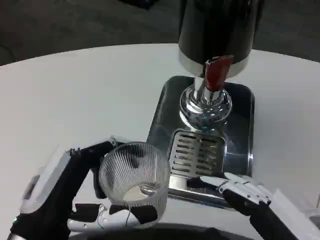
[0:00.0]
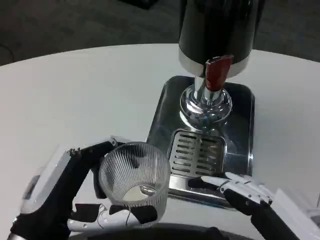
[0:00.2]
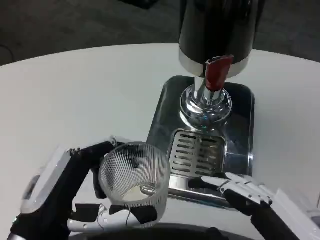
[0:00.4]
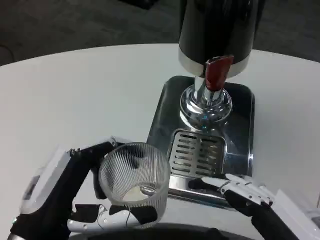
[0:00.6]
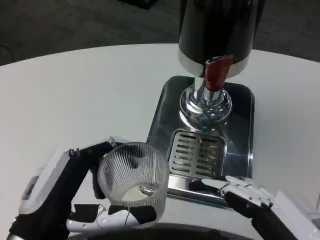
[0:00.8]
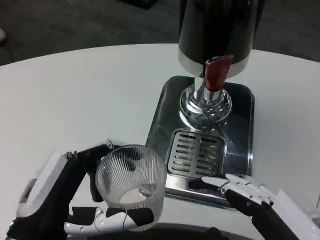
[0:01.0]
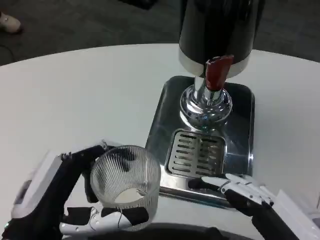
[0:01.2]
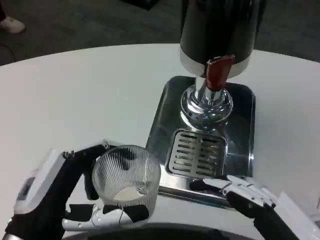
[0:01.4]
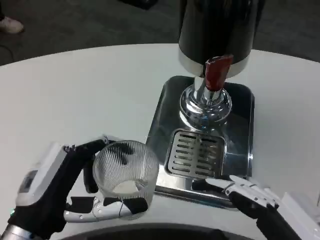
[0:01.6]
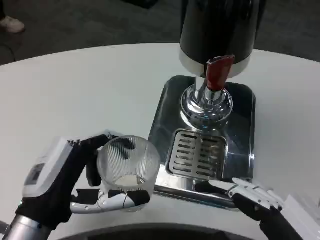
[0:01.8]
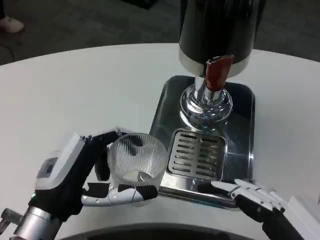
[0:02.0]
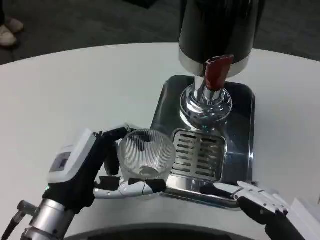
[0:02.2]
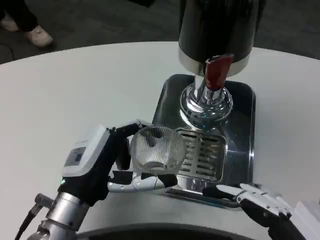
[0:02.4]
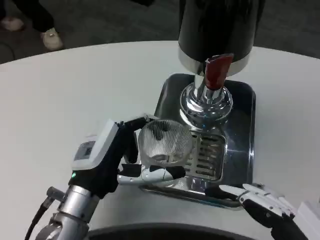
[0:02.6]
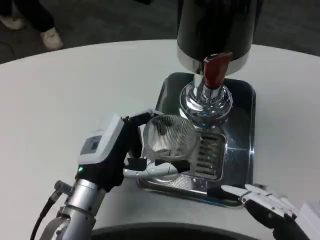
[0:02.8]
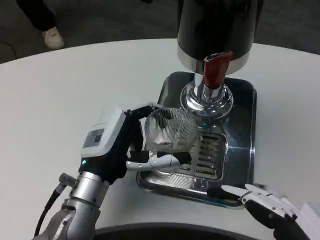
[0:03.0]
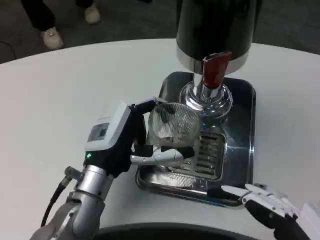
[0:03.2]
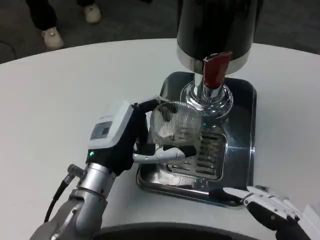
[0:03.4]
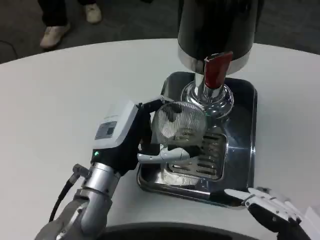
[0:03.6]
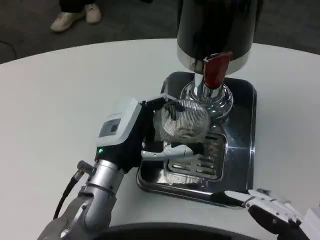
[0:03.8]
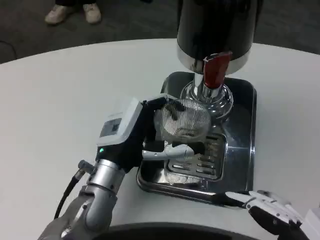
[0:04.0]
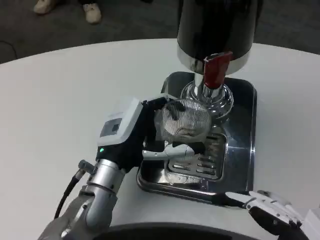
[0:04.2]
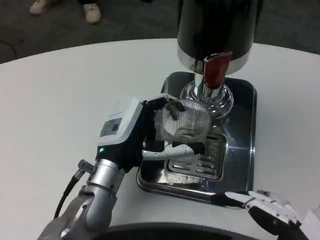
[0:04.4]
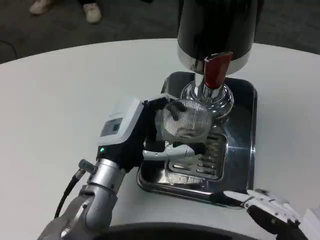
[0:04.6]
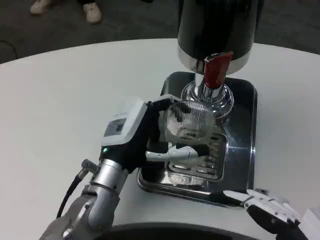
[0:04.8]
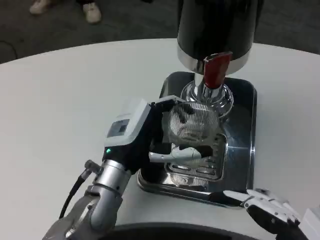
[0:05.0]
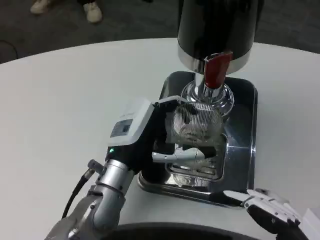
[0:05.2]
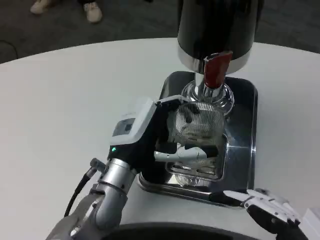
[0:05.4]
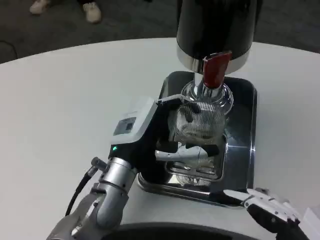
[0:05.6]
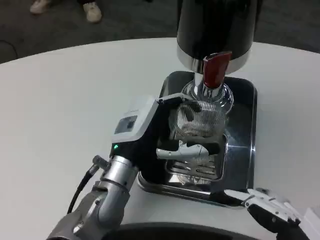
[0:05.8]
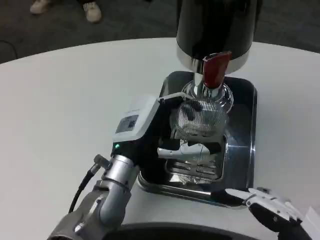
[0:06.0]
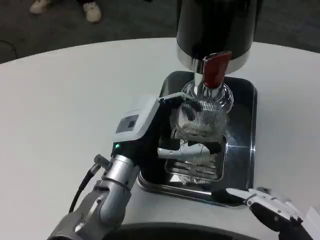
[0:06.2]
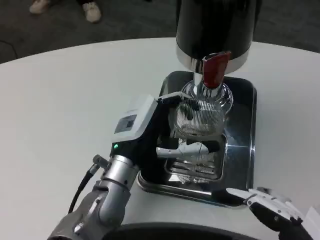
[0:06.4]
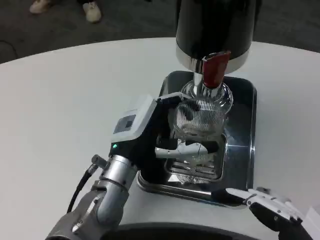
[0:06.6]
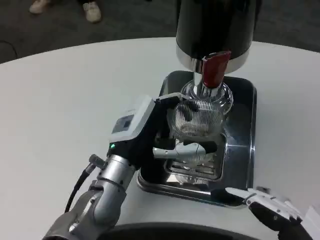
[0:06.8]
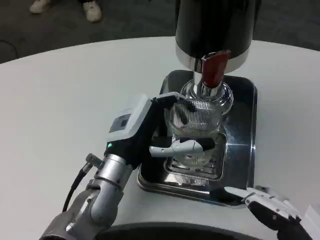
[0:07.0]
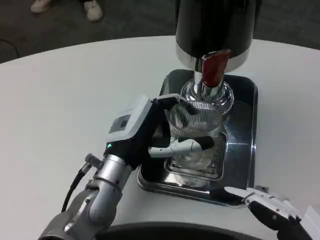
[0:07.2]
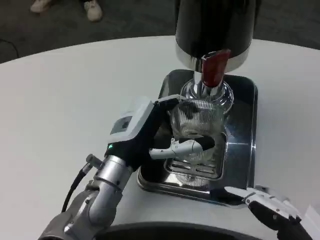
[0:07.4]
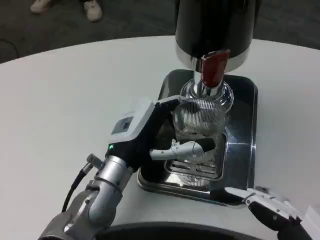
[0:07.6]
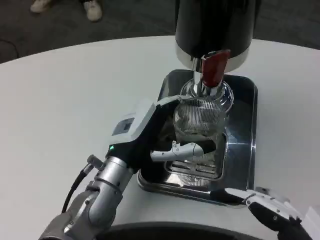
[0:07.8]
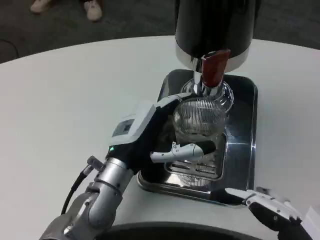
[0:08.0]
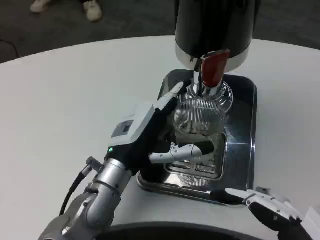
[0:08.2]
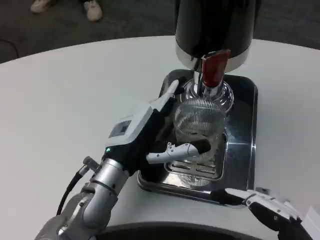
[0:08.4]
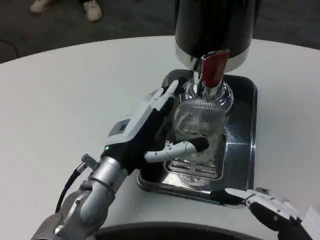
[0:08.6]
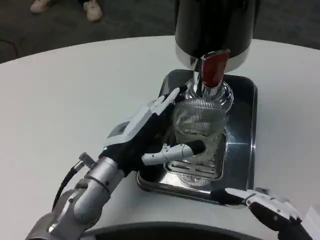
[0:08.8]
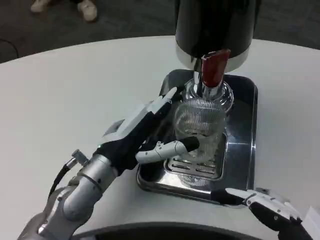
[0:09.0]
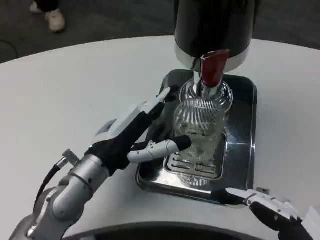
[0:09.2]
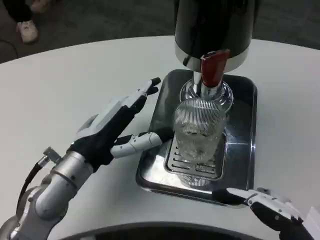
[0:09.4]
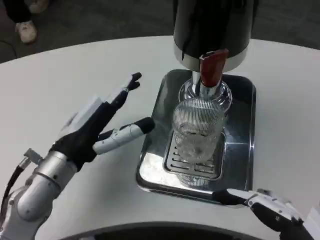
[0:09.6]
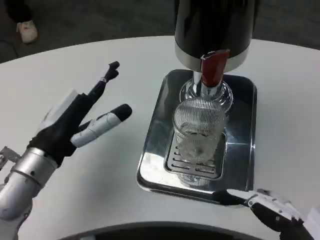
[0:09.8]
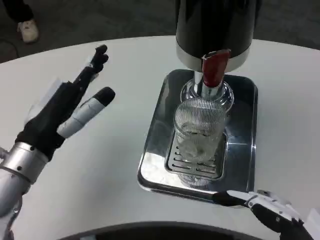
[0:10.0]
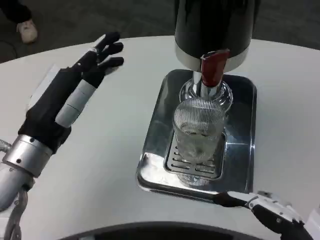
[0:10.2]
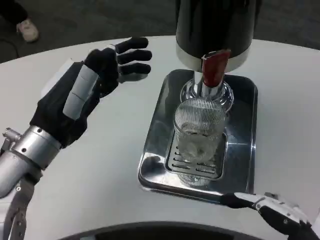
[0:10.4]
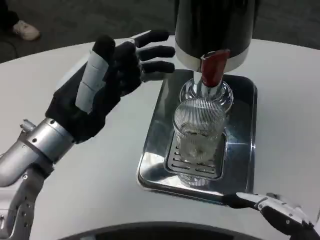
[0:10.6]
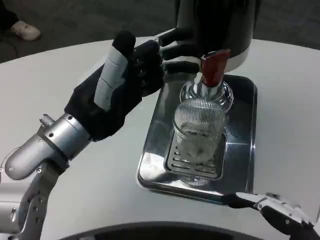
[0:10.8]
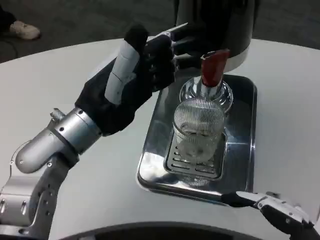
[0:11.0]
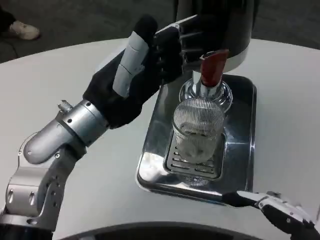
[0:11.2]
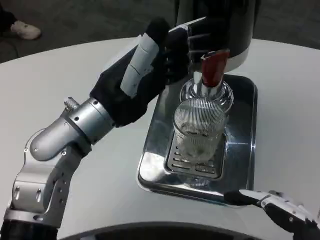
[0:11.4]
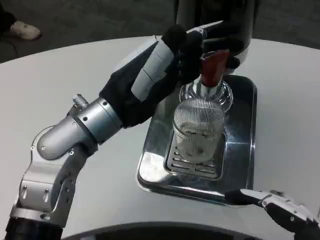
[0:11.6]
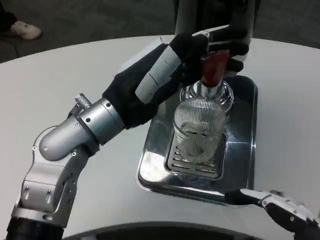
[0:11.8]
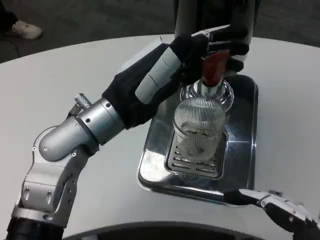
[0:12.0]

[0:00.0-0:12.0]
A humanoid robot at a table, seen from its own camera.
Task of the whole recording: Grasp the cup under the faucet to collect the drink, then remove the cup.
0:00.0 to 0:01.6: The hands stay close to where they were, moving slightly.
0:01.6 to 0:03.0: The left hand shifts some 10 cm forward and to the right.
0:03.0 to 0:06.0: There are only small adjustments of the hands.
0:06.0 to 0:07.6: Both hands stay put.
0:07.6 to 0:09.0: There are only small adjustments of the hands.
0:09.0 to 0:10.4: The left hand travels upward and to the left by approximately 10 cm.
0:10.4 to 0:12.0: The left hand moves to the right, some 5 cm.

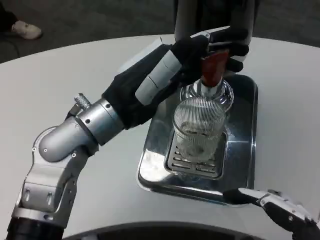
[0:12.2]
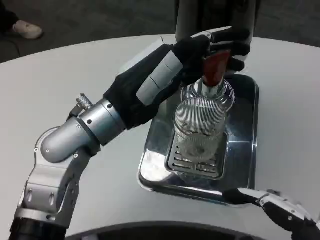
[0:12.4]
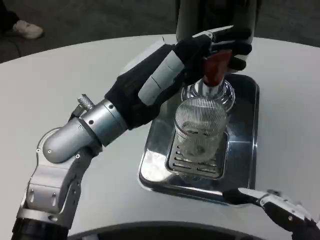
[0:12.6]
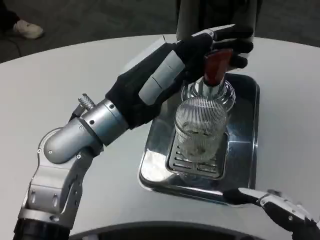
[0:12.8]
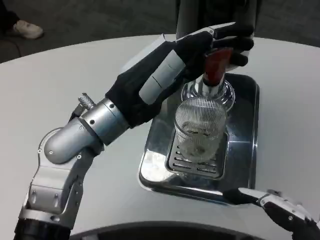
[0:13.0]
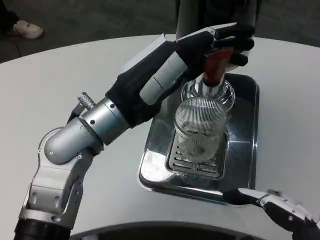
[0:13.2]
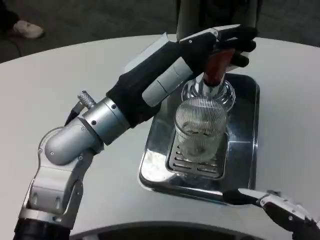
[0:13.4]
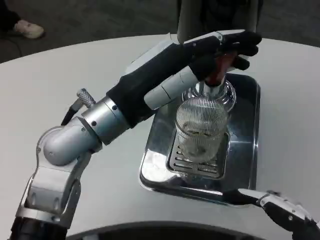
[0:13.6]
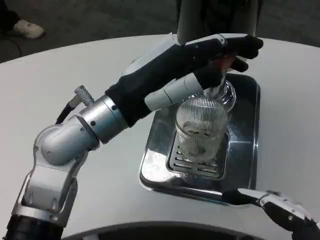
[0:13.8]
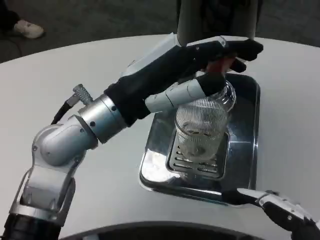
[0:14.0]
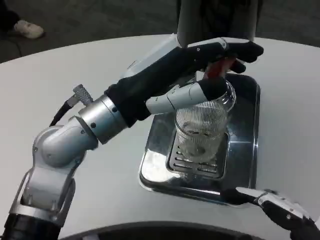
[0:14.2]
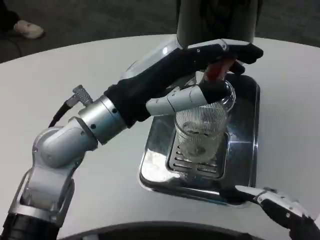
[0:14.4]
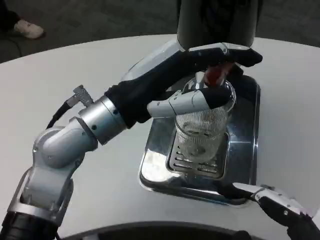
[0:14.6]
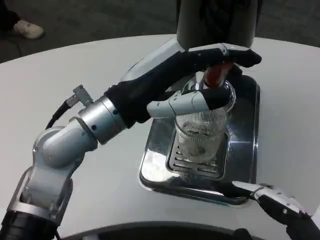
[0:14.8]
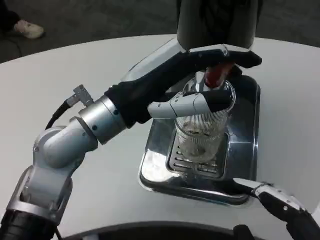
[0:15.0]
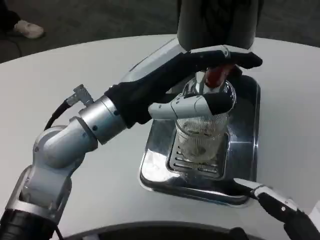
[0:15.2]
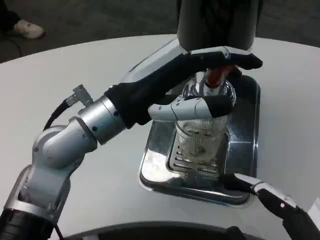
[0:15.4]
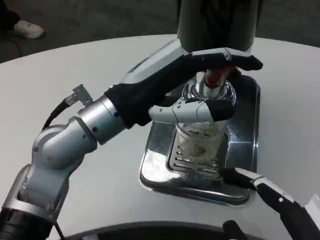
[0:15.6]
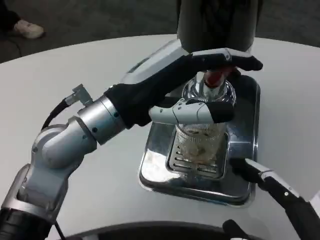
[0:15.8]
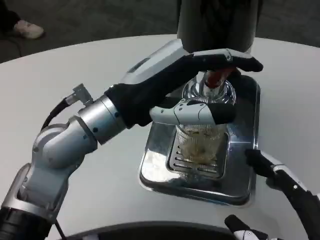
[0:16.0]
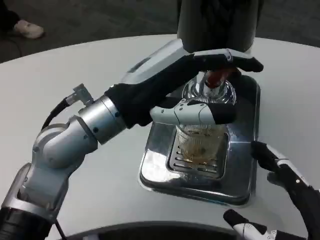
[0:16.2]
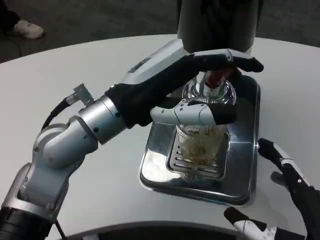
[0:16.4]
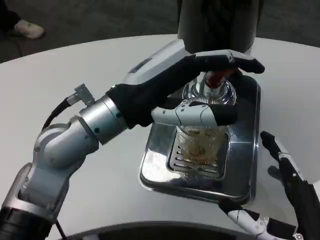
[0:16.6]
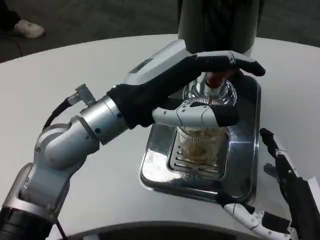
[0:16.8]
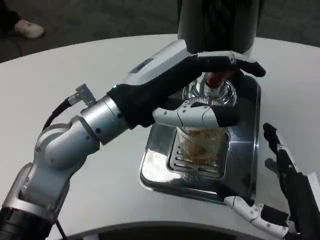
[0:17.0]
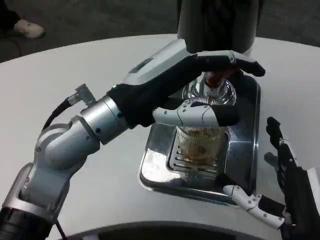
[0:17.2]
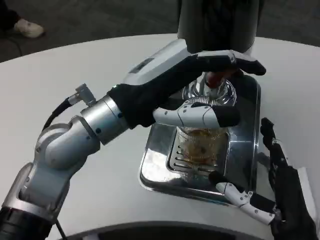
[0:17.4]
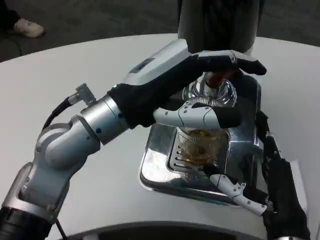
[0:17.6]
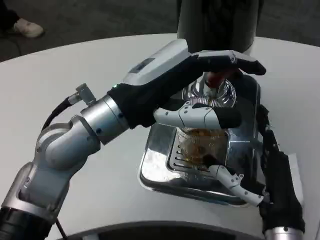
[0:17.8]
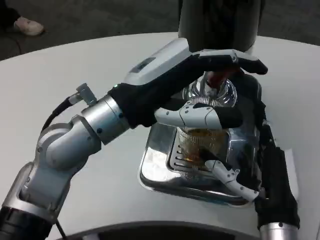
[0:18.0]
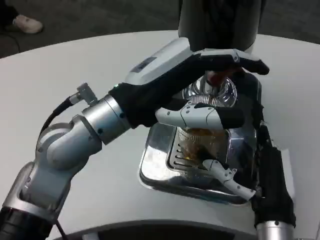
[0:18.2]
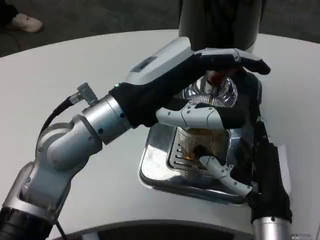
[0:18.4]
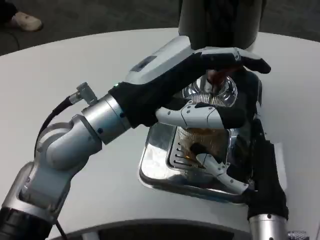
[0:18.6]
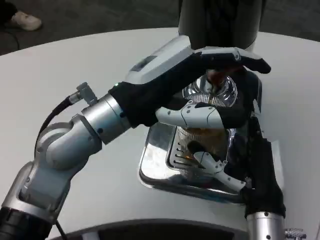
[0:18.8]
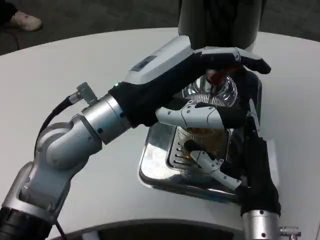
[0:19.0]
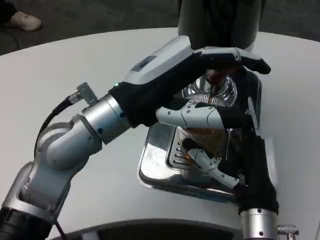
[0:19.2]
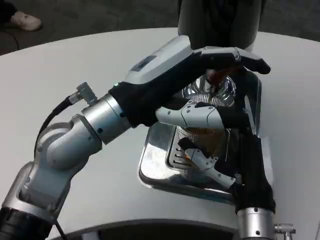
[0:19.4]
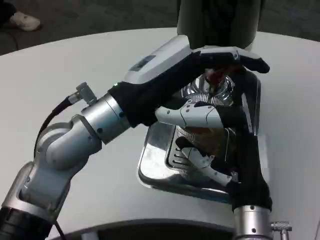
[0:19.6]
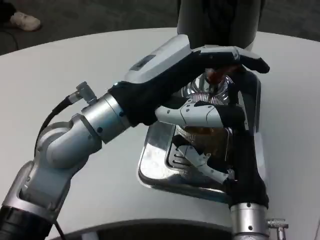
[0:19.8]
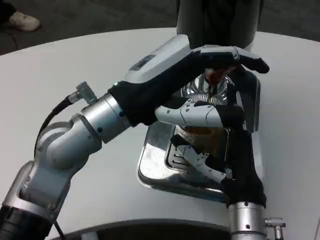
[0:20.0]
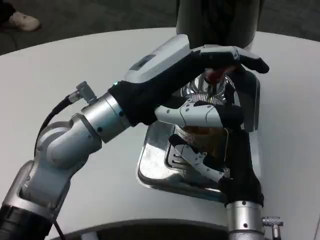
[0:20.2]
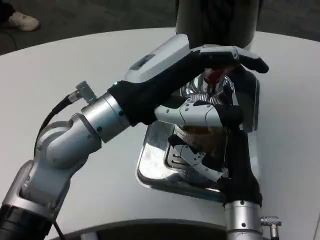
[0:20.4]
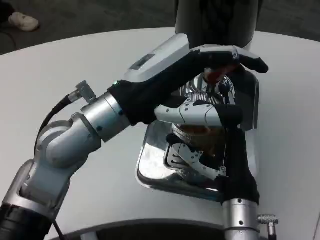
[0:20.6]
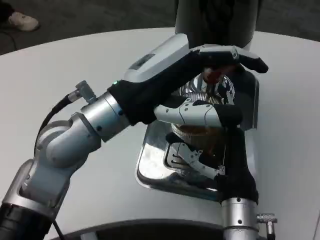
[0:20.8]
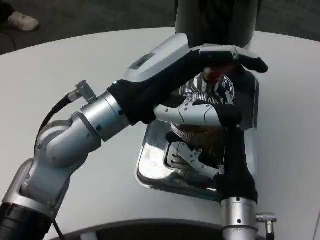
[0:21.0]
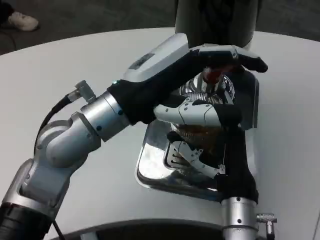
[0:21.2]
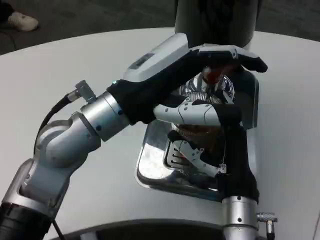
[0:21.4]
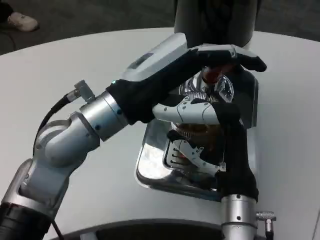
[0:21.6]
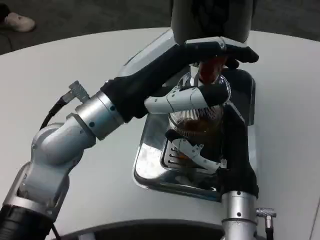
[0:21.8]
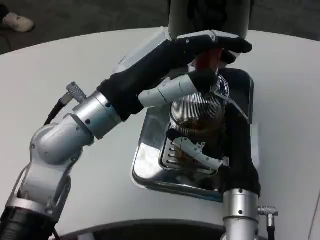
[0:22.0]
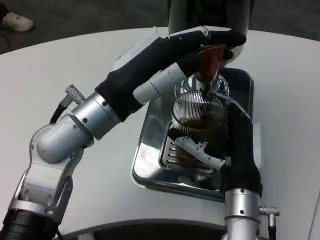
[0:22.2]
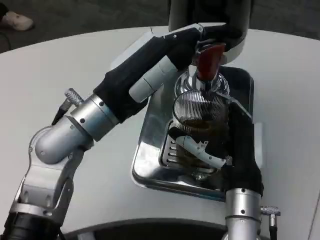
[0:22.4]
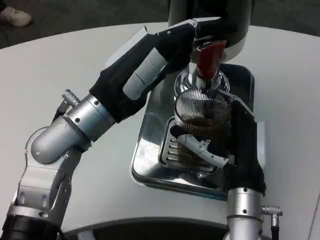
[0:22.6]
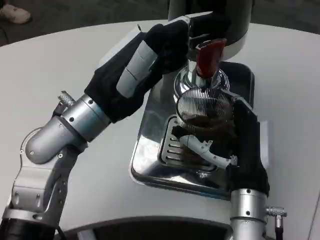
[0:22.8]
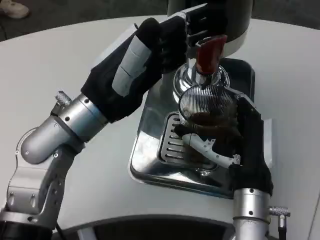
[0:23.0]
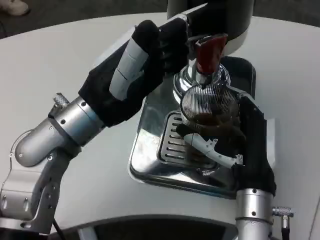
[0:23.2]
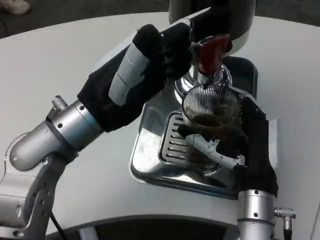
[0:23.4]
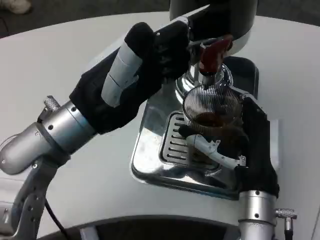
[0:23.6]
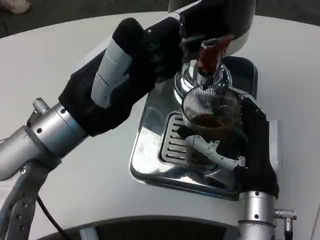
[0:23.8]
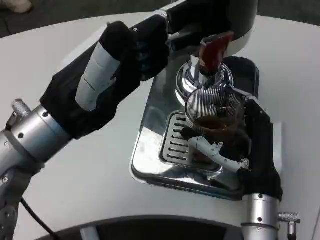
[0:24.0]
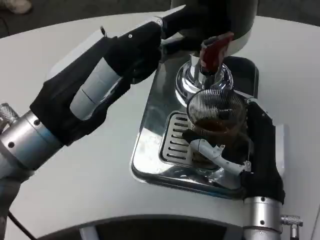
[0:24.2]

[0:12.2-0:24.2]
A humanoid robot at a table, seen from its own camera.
Task of the whole recording: Grasp the cup under the faucet to collect the drink, then remove the cup.
0:12.2 to 0:13.8: There are only small adjustments of the hands.
0:13.8 to 0:15.2: There are only small adjustments of the hands.
0:15.2 to 0:16.6: The right hand shifts approximately 5 cm forward.
0:16.6 to 0:18.2: The right hand is displaced forward by roughly 10 cm.
0:18.2 to 0:21.2: There are only small adjustments of the hands.
0:22.6 to 0:24.2: The left hand shifts some 10 cm backward.
